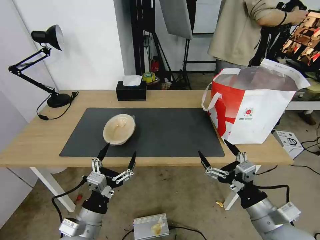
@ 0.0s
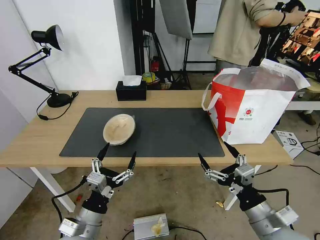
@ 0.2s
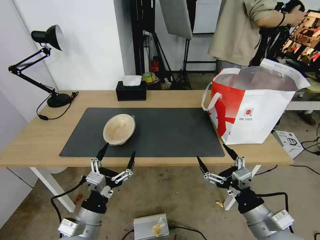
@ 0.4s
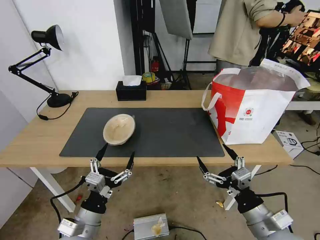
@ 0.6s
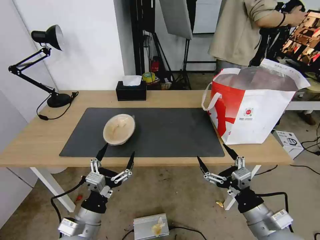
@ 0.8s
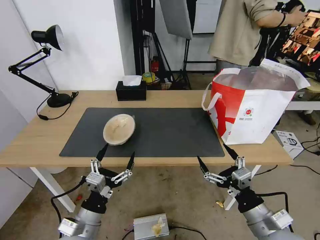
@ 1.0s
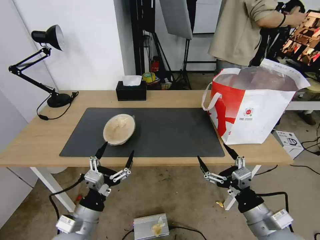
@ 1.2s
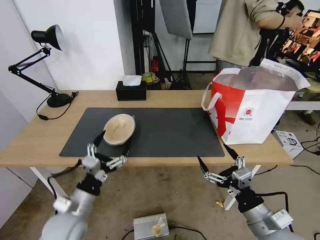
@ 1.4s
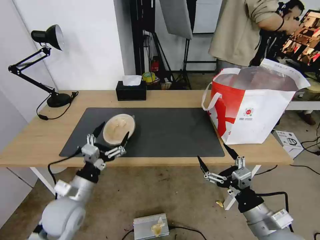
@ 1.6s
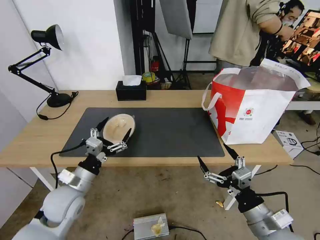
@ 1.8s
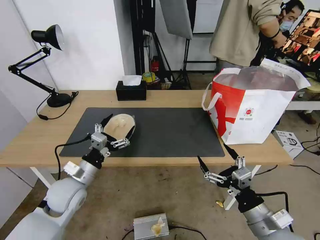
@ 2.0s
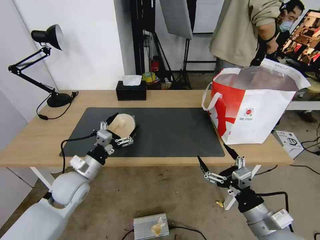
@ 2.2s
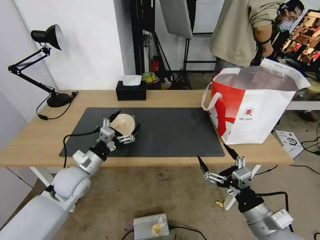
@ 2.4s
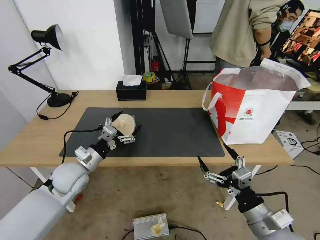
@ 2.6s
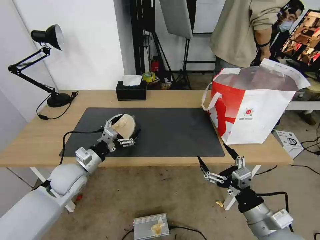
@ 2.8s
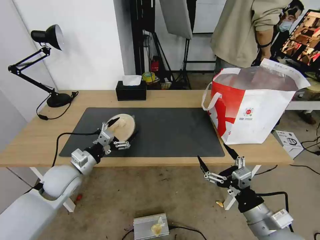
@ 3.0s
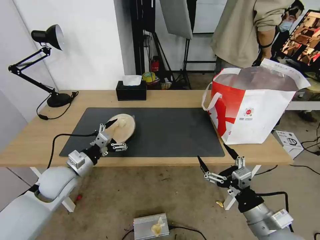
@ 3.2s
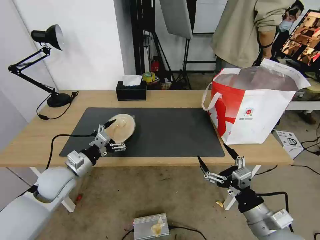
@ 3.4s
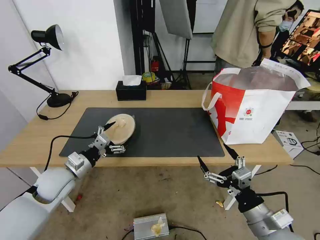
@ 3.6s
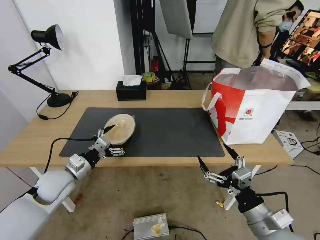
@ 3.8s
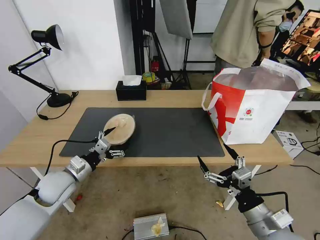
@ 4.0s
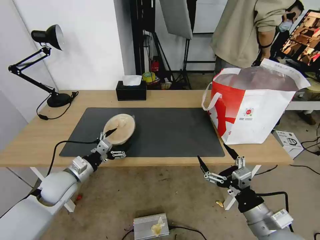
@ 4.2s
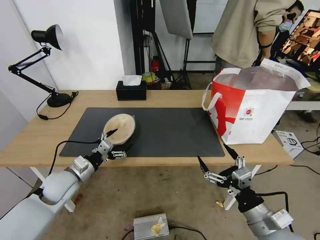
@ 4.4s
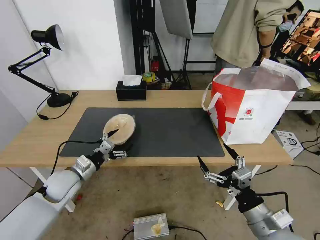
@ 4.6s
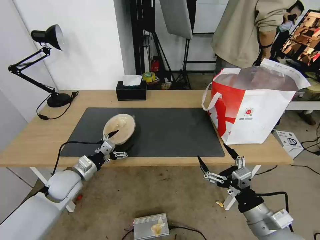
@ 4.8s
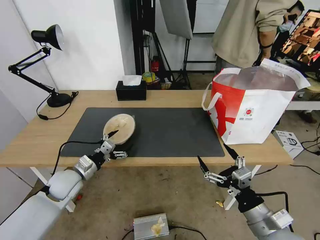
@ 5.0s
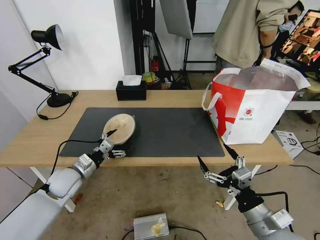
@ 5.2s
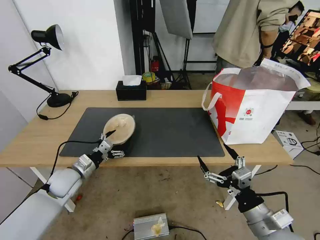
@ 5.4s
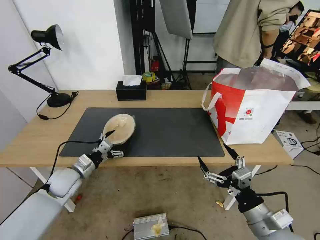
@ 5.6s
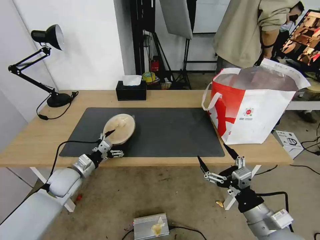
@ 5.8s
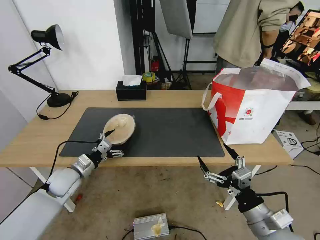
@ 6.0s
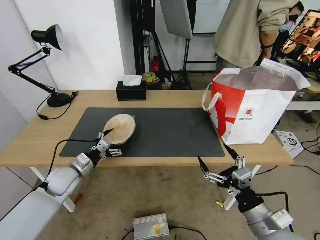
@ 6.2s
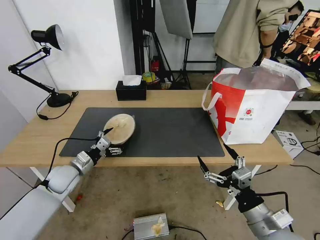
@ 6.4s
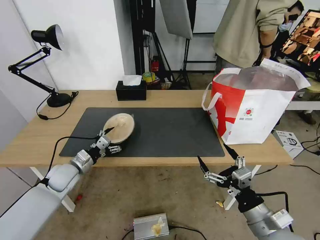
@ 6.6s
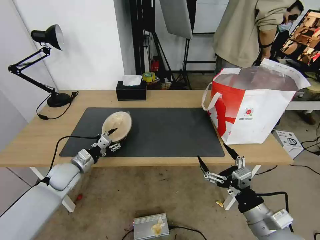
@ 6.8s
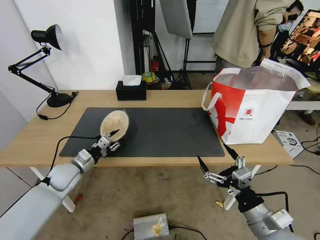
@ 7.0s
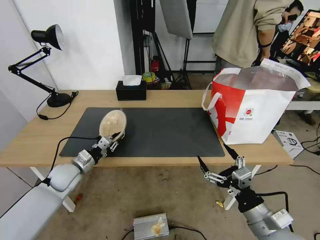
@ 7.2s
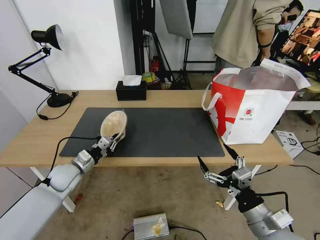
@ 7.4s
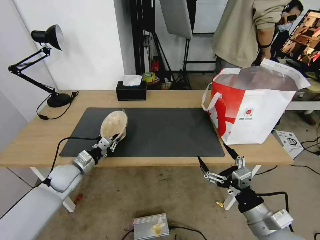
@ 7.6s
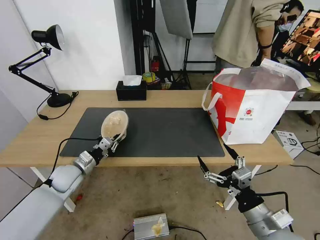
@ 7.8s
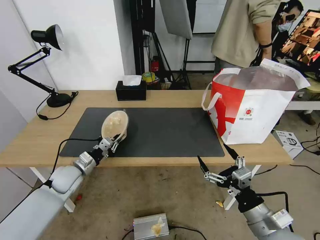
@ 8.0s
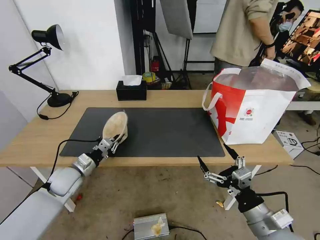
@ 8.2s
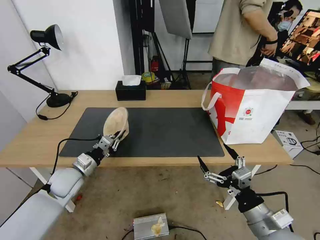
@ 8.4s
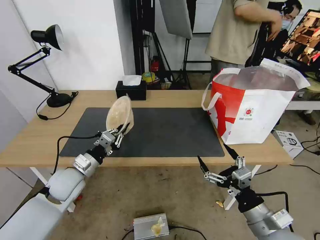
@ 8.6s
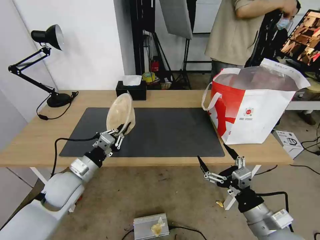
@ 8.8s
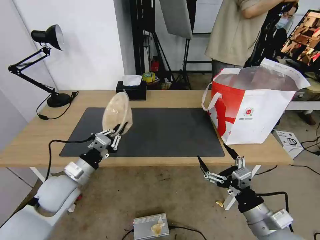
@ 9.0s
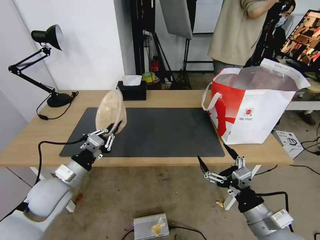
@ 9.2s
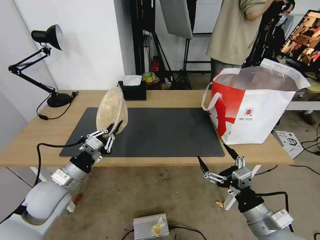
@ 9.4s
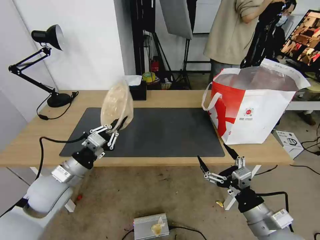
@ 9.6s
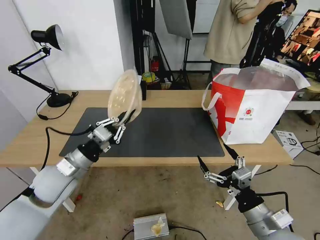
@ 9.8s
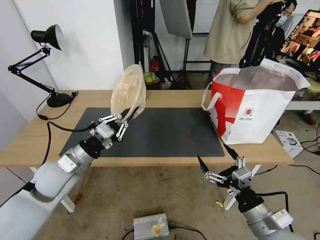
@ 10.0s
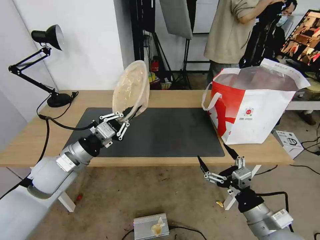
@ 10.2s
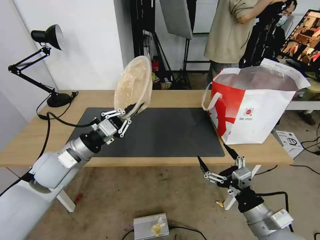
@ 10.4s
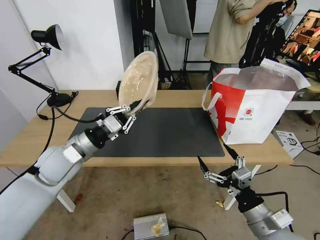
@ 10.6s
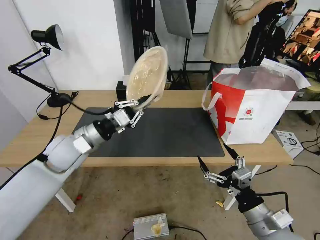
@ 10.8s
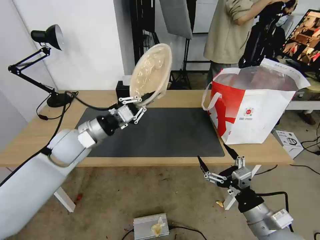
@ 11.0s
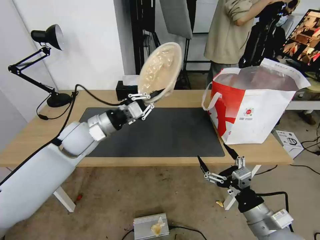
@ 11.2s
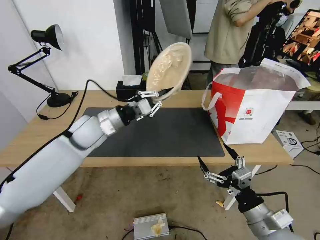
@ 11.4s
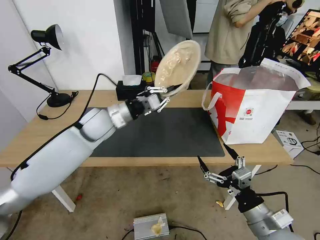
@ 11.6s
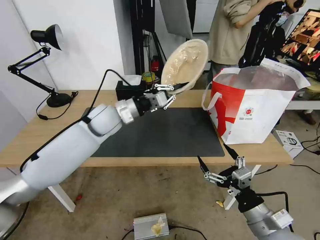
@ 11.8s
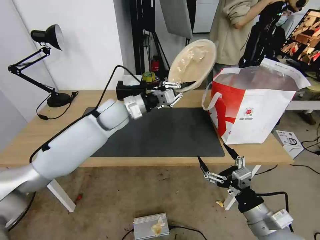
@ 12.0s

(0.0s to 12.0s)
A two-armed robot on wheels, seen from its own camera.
Task of the whole recording: Pick up the trash from the table and place it into the takeout bag.
0.0s - 1.6s: The left gripper moves forward, some 10 cm.
1.6s - 3.0s: The left gripper heads forward, covering about 10 cm.
3.0s - 4.4s: The grippers move only a little.
4.4s - 6.0s: The left gripper ends up approximately 5 cm from where it was.
6.0s - 7.6s: The left gripper closes up.
7.6s - 9.0s: The left gripper shifts about 10 cm backward and upward.
9.0s - 10.4s: The left gripper goes about 5 cm upward.
10.4s - 12.0s: The left gripper travels forward and to the right by some 20 cm.

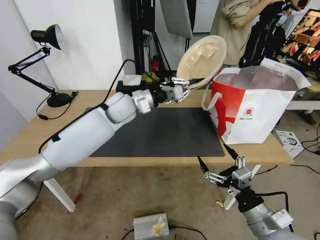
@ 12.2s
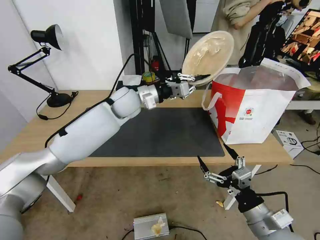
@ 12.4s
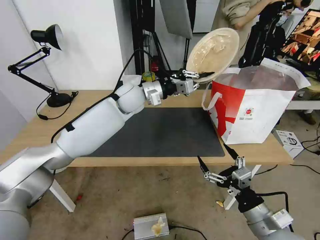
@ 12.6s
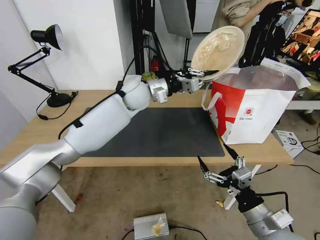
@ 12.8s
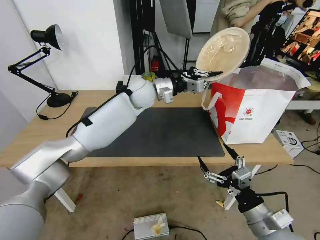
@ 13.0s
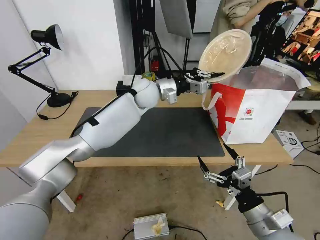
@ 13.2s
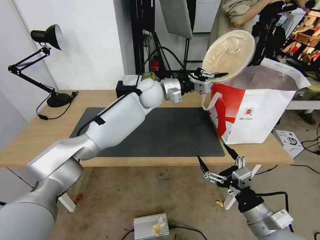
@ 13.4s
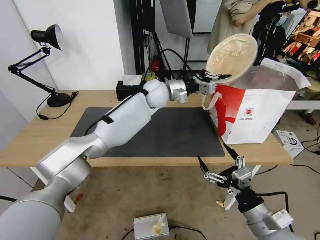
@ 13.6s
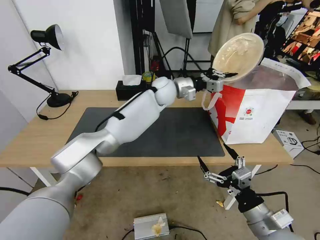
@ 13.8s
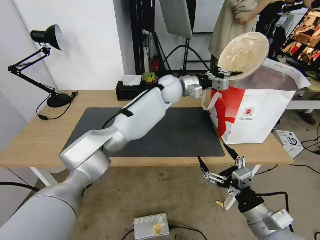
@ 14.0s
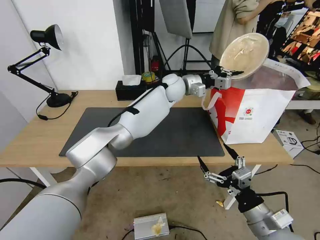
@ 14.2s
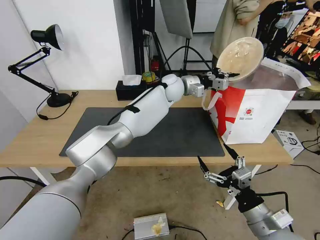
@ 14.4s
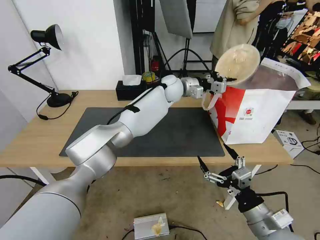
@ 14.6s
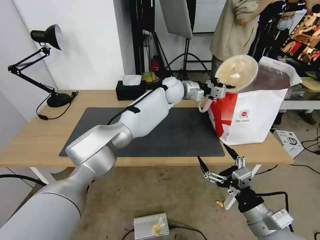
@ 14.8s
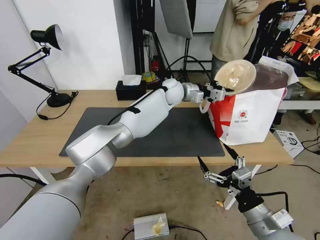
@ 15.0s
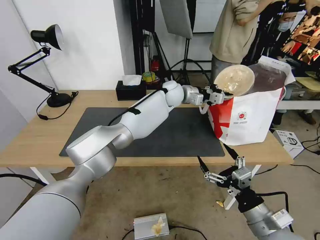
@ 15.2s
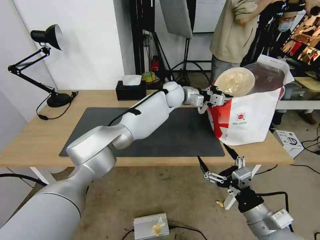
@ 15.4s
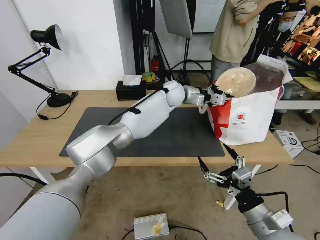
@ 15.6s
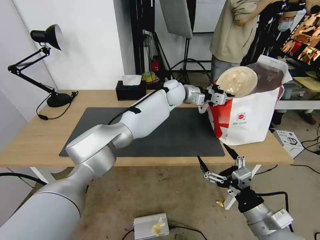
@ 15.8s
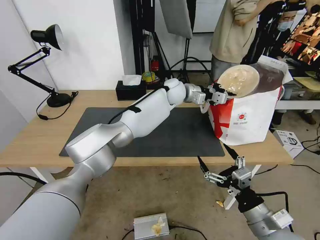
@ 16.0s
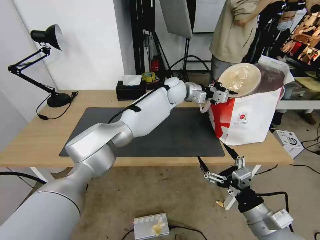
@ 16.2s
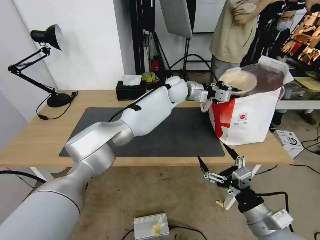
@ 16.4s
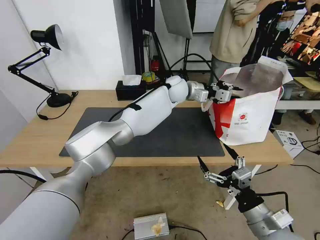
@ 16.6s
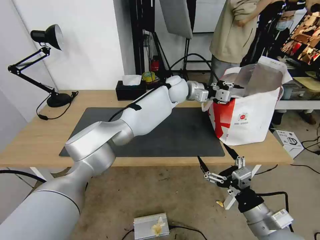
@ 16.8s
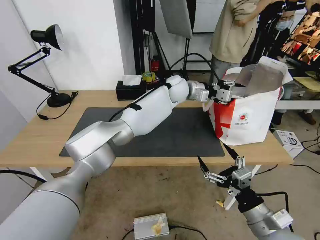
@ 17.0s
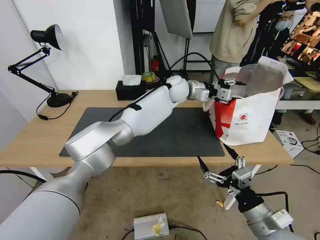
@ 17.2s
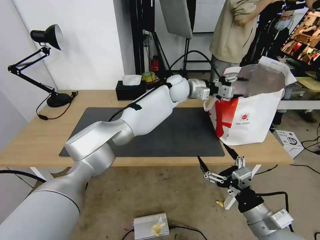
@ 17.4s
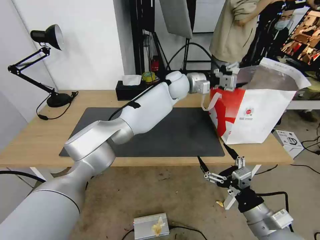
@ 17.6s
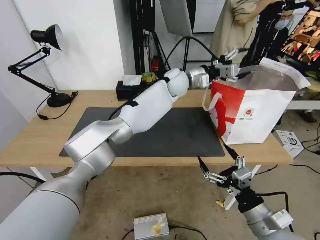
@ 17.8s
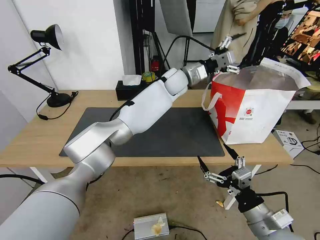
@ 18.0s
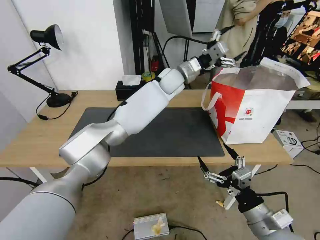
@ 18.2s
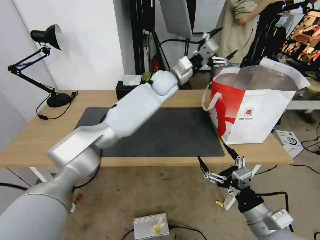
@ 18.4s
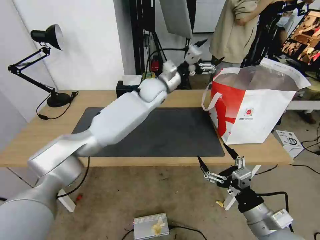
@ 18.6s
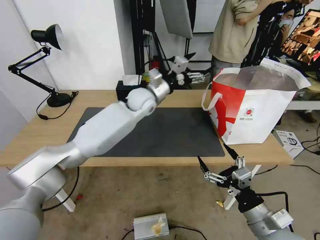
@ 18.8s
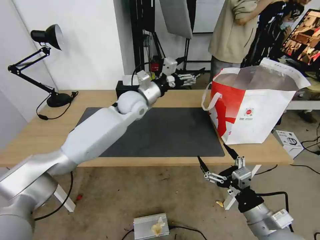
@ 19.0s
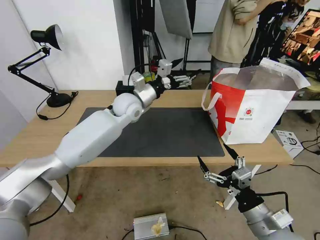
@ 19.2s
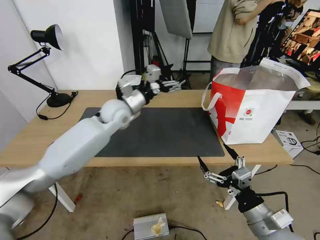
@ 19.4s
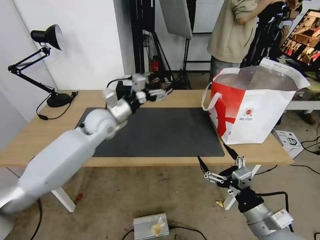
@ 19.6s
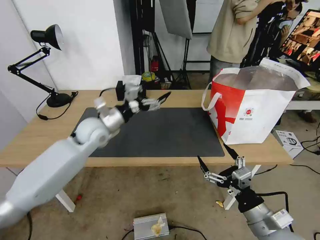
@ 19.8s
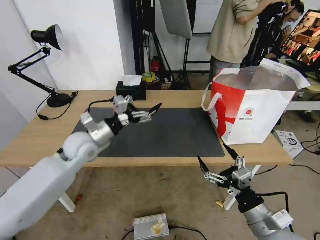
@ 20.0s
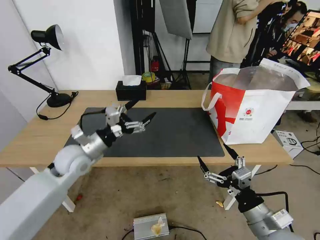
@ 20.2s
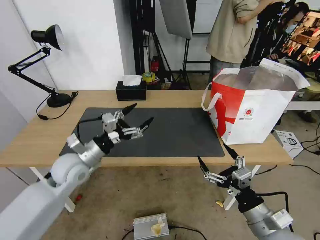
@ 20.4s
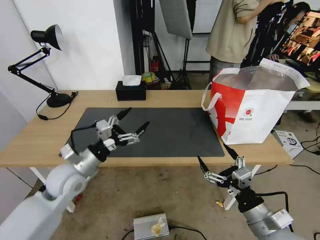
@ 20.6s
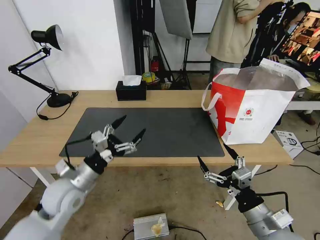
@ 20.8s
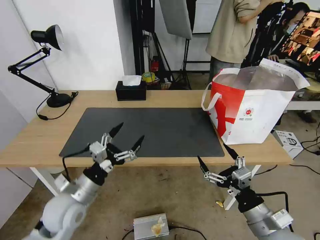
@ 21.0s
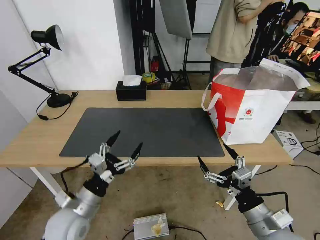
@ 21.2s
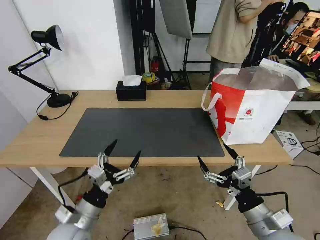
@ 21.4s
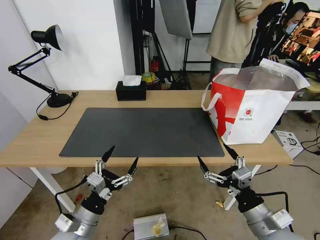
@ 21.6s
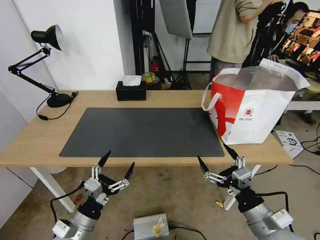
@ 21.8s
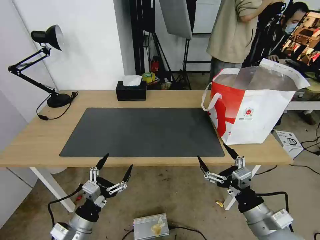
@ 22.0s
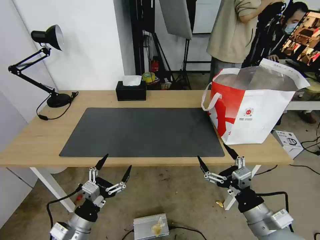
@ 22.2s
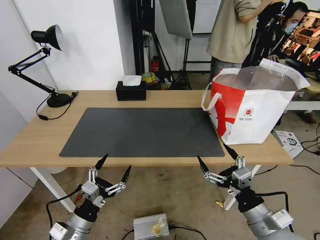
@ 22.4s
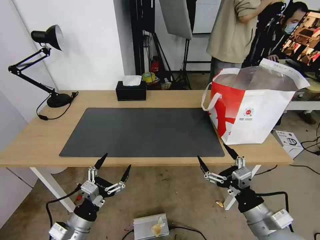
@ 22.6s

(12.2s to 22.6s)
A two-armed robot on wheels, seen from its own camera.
Task of the whole recording: Pick up the trash from the table and place it into the takeout bag.
12.2s - 13.6s: The left gripper travels to the right and forward by roughly 15 cm.
13.6s - 15.2s: The left gripper travels to the right by about 5 cm.
15.2s - 16.6s: The left gripper opens.
16.6s - 18.2s: The left gripper opens its fingers.
18.2s - 19.6s: The left gripper is displaced to the left and backward by some 25 cm.
19.6s - 21.2s: The left gripper heads backward and downward, covering approximately 30 cm.
21.2s - 22.6s: The left gripper travels downward and backward by about 10 cm.
